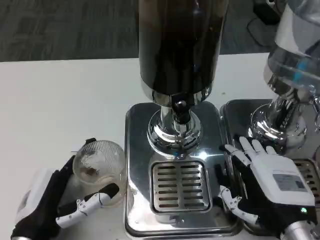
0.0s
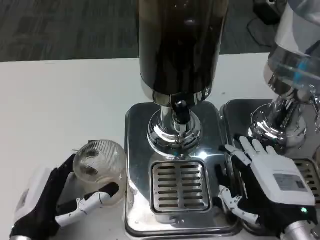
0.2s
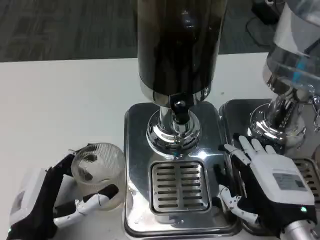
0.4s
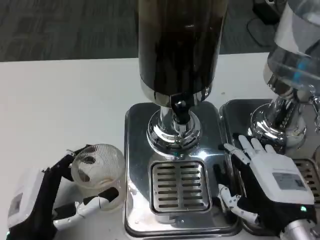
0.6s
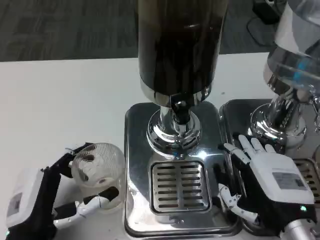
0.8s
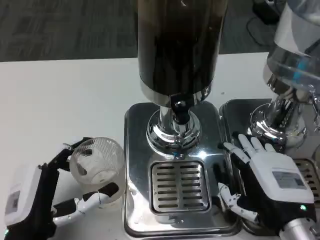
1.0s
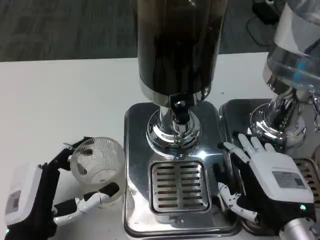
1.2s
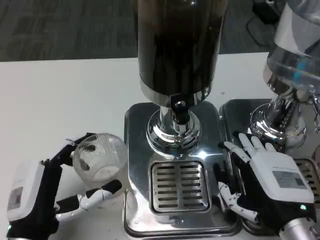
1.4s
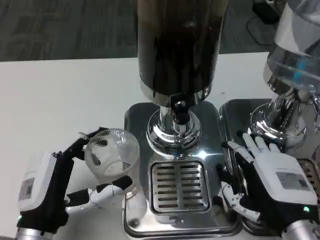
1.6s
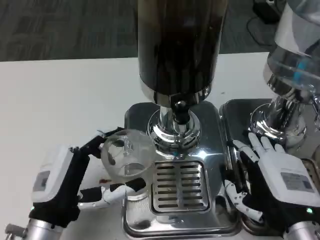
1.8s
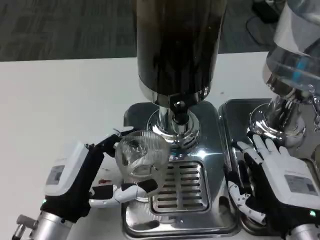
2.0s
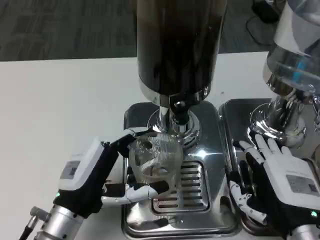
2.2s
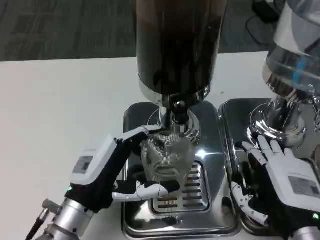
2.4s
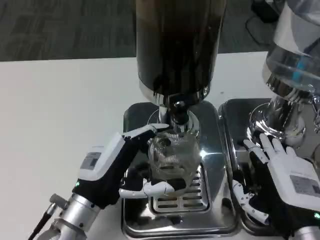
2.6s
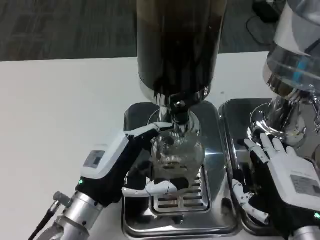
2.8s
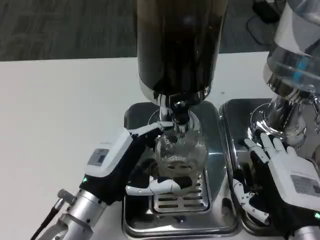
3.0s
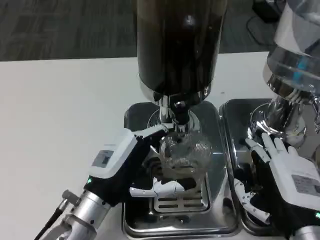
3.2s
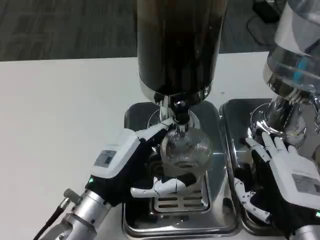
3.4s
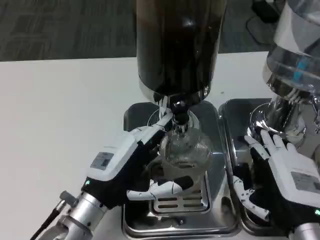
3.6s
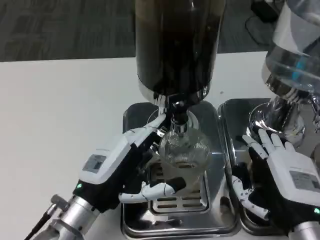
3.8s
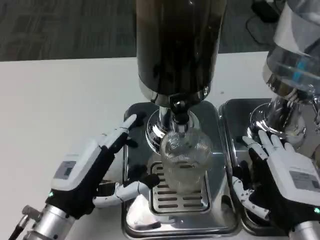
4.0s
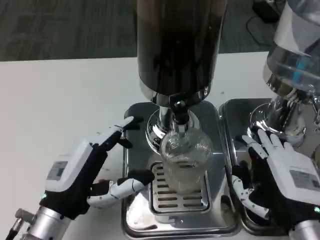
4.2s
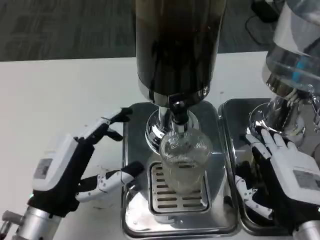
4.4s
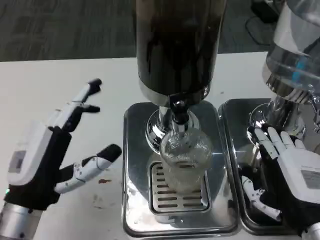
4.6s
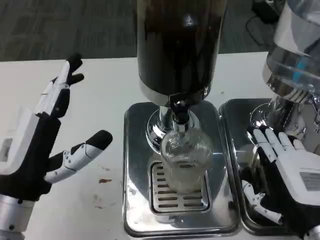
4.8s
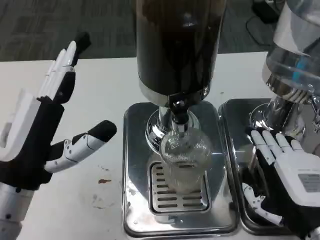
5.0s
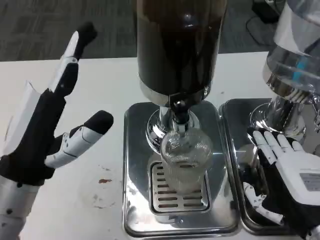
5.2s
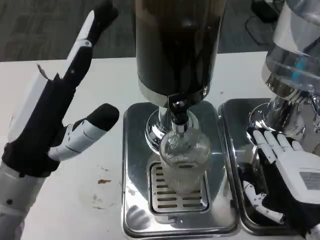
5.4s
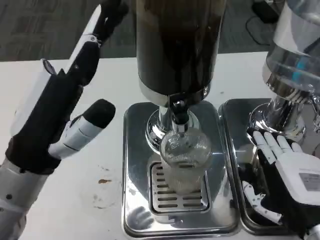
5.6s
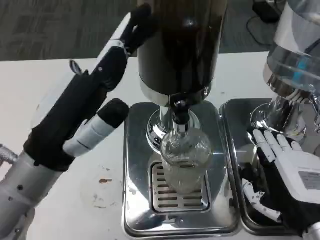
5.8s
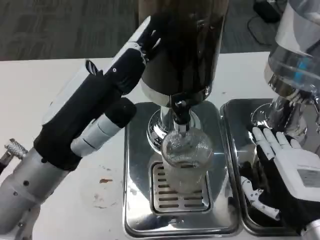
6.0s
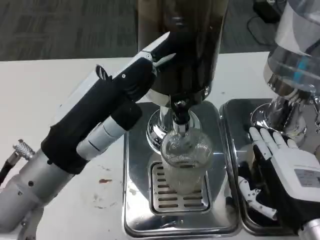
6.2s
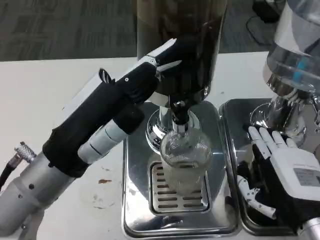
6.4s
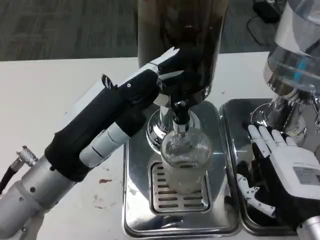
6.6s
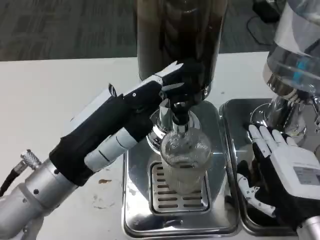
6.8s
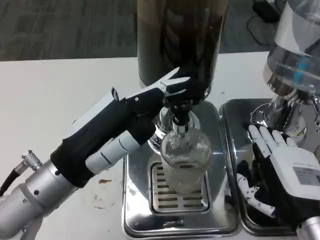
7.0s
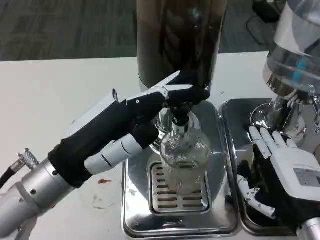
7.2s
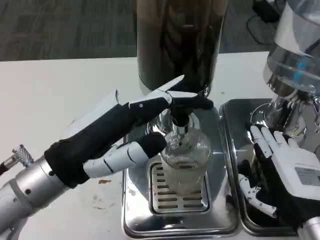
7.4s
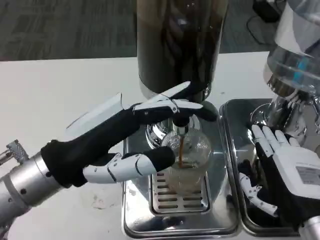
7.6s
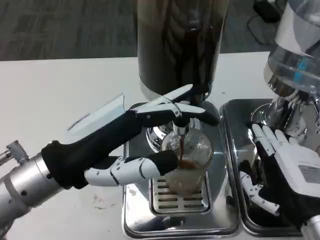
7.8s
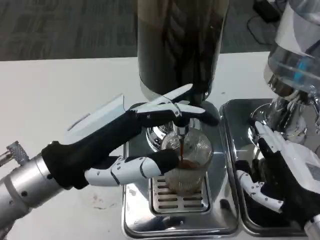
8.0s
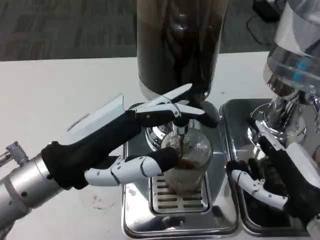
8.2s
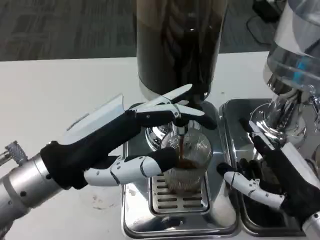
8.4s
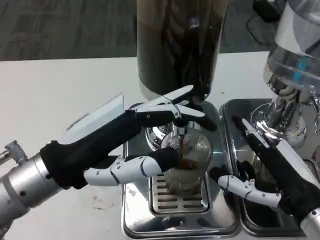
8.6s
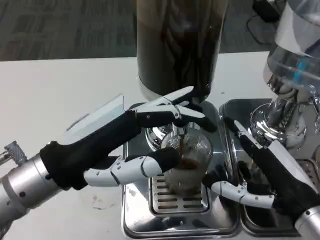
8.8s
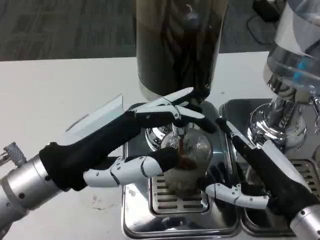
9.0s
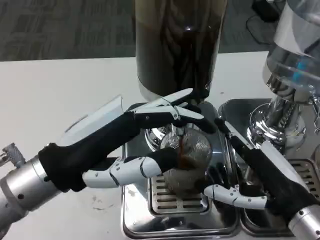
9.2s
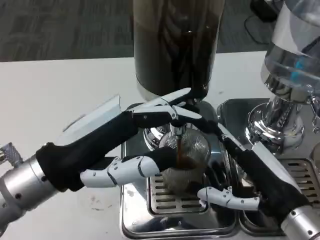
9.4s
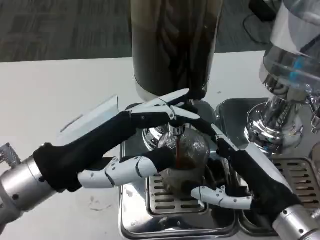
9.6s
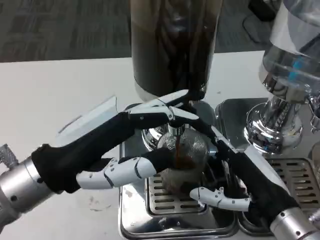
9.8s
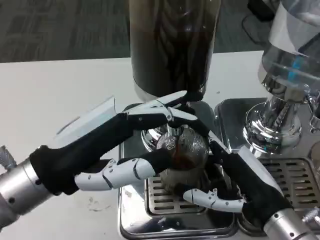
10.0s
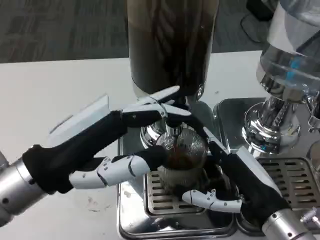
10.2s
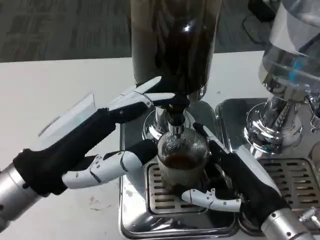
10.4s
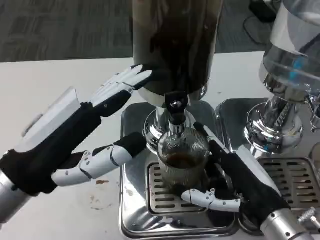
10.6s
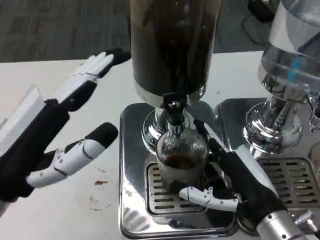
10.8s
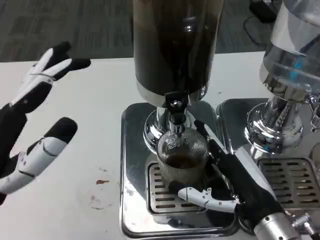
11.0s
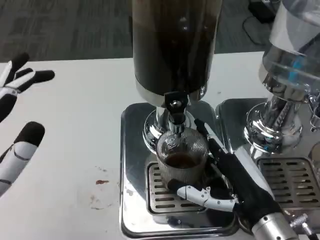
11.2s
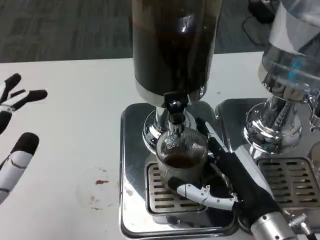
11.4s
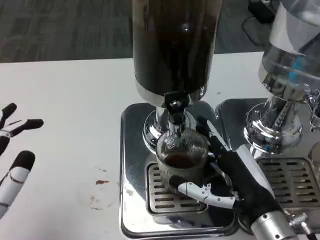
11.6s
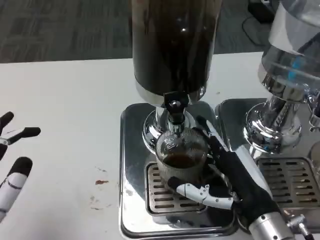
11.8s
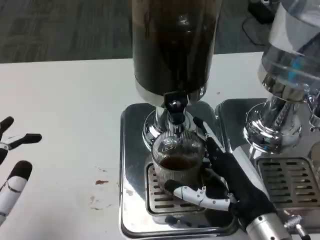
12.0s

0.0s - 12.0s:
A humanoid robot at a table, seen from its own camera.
Task of the whole recording: Grasp the cup under the faucet to collect the drink, then remove the cup.
0.0s - 1.6s: The hands stay close to where they were, moving slightly.
1.6s - 3.0s: The left hand moves forward and to the right, some 10 cm.
3.0s - 4.4s: The left hand changes place by roughly 5 cm.
4.4s - 6.0s: The left hand moves upward, some 10 cm.
10.4s - 12.0s: The left hand travels backward, downward and to the left by about 15 cm.

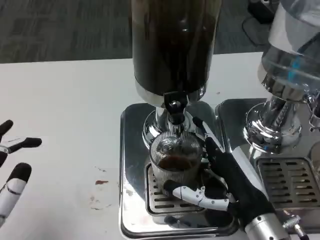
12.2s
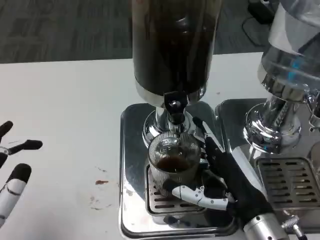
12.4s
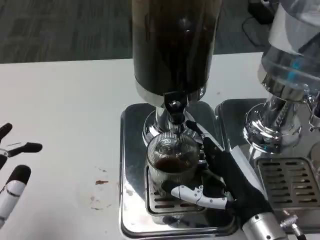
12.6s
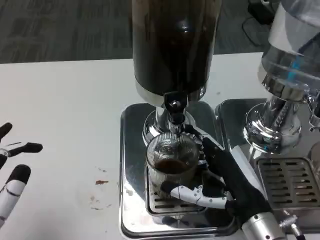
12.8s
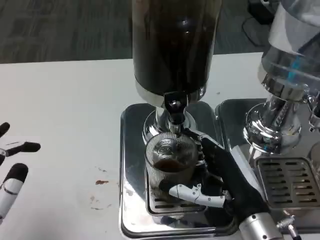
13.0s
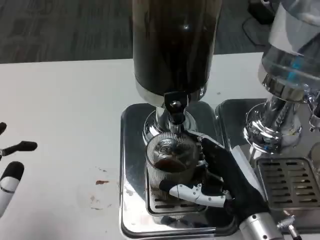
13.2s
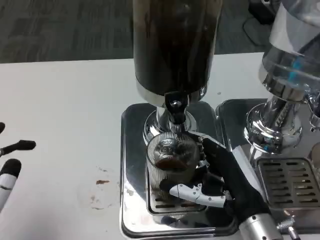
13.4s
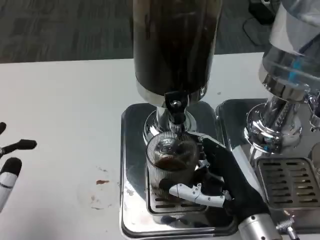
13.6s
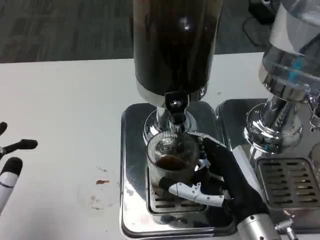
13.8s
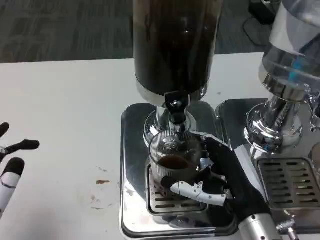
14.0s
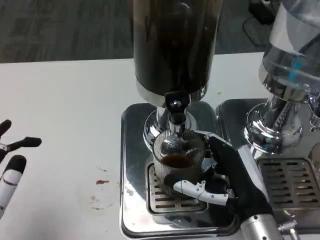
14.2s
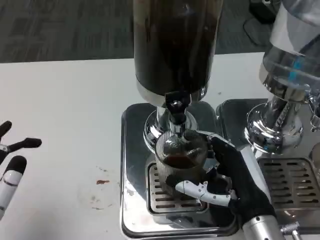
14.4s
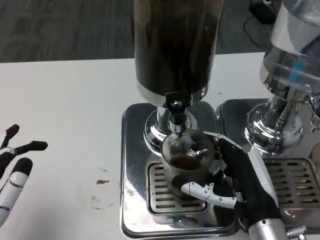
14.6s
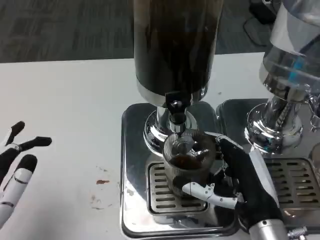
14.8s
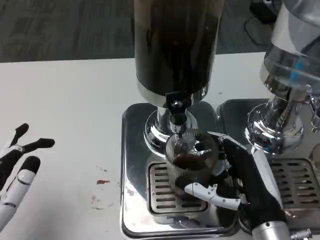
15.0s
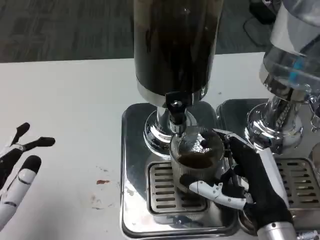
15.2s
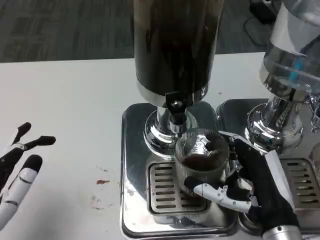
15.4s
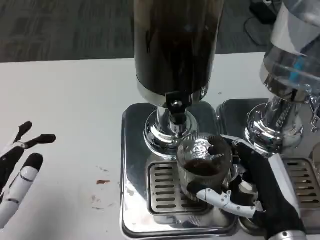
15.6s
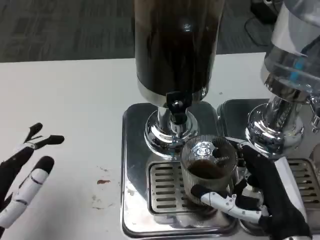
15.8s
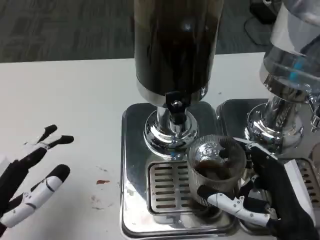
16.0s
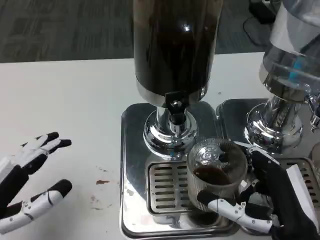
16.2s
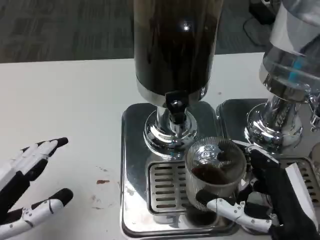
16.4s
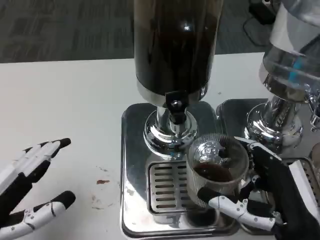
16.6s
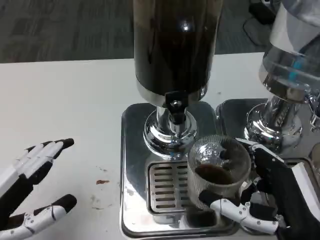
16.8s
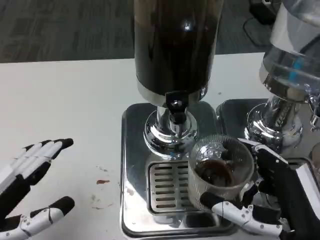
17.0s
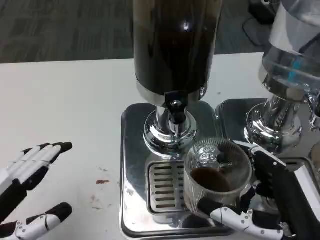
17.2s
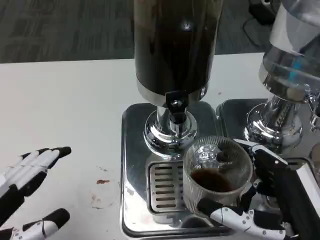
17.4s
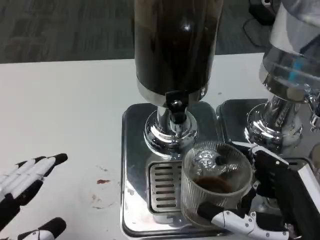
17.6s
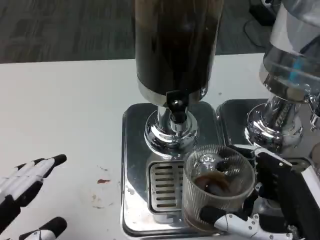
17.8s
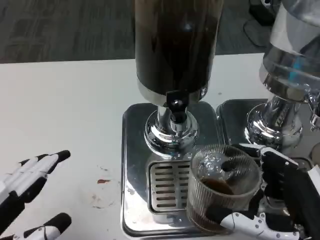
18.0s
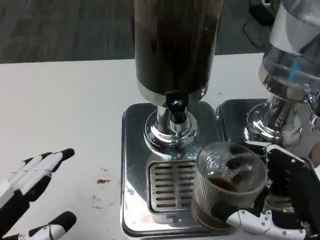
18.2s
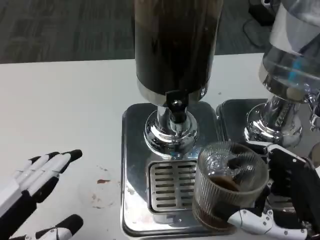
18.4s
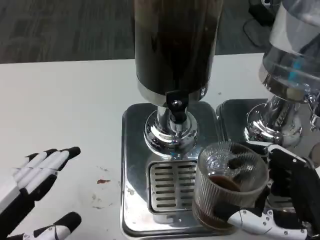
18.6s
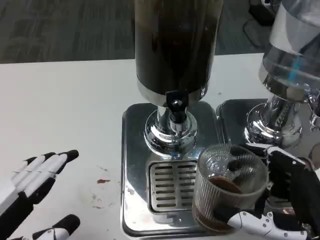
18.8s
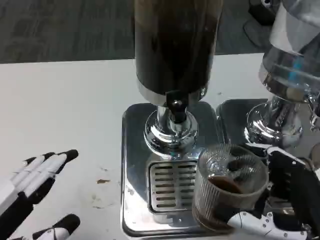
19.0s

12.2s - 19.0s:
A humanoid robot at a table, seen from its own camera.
Task of the whole recording: Grasp the cup under the faucet to collect the drink, then remove the cup.
12.2s - 15.0s: The hands stay close to where they were, moving slightly.
15.0s - 16.2s: The right hand shifts by some 5 cm.
16.2s - 17.6s: The left hand changes place by approximately 5 cm.
17.6s - 19.0s: The hands move only a little.

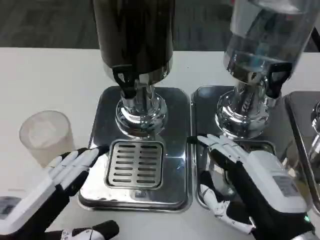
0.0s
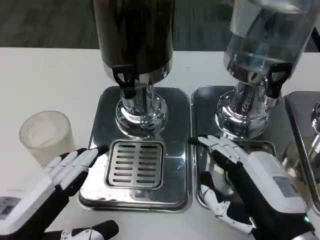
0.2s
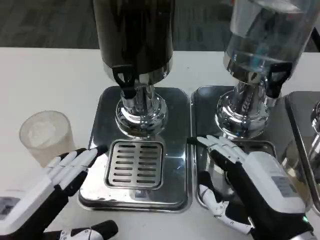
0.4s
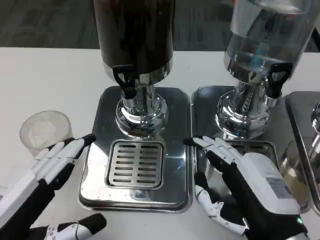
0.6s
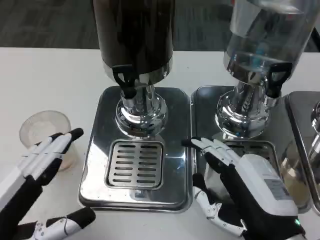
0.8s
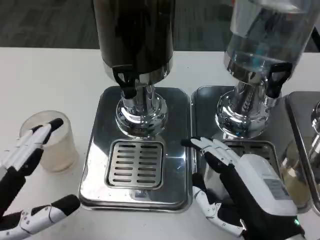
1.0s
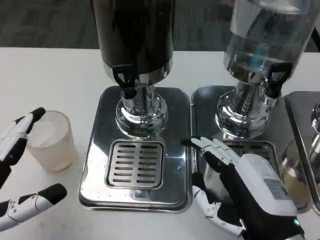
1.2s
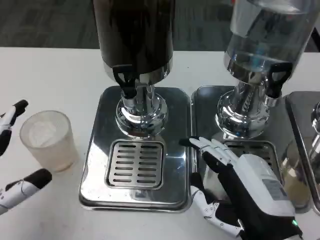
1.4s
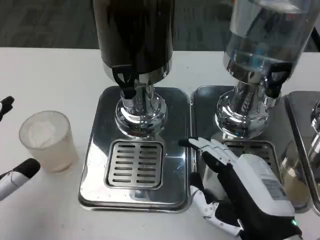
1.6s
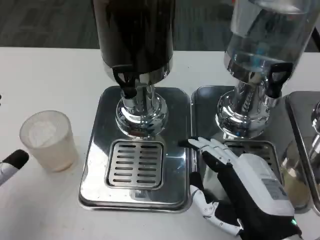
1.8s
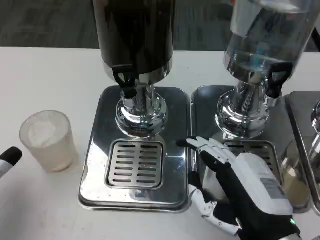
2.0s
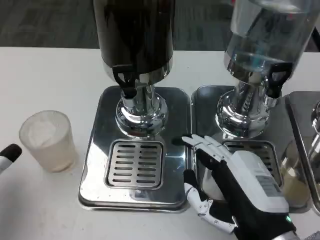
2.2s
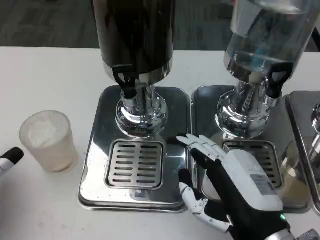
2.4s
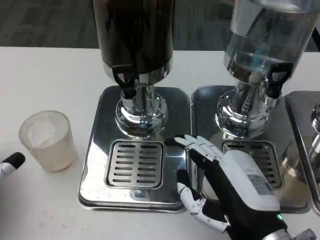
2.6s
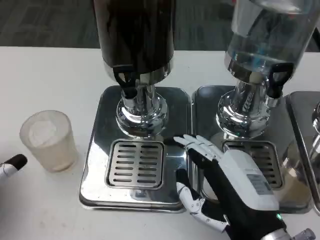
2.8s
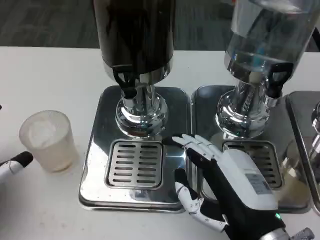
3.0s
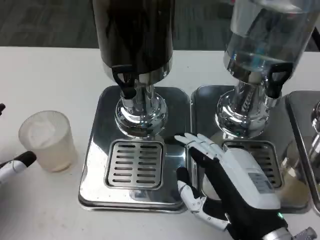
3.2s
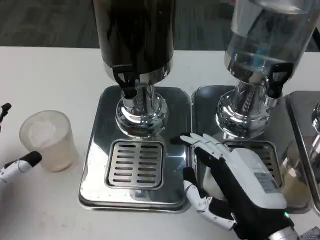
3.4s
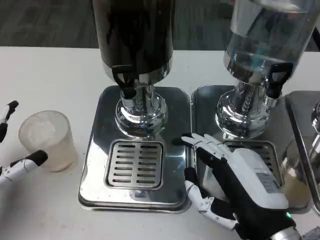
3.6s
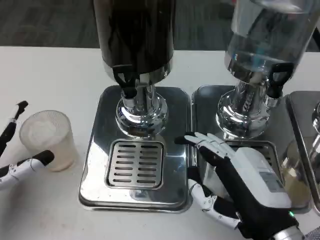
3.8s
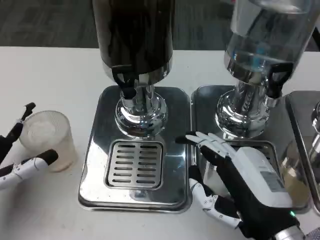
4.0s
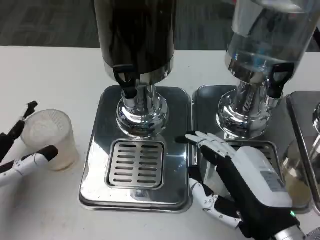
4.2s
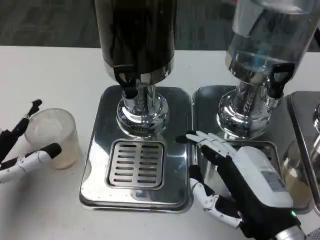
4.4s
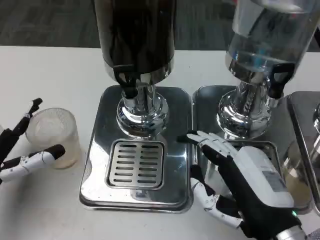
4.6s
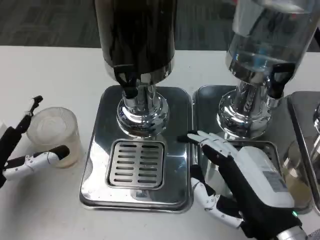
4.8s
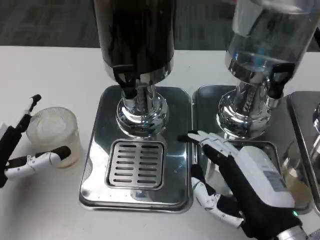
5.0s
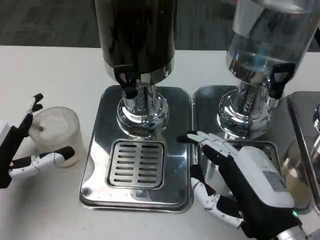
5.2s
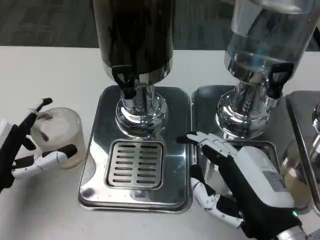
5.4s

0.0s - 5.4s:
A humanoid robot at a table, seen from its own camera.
Task of the whole recording: Grasp the cup under the faucet to collect the drink, then remove the cup.
1.4s - 2.8s: The left hand changes place by roughly 5 cm.
2.8s - 4.0s: The hands move only a little.
4.0s - 5.4s: There are only small adjustments of the hands.
